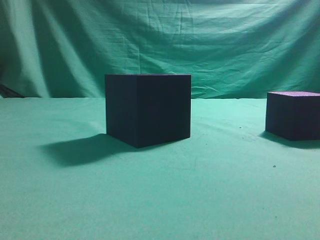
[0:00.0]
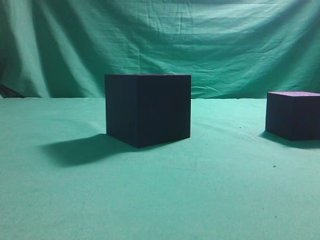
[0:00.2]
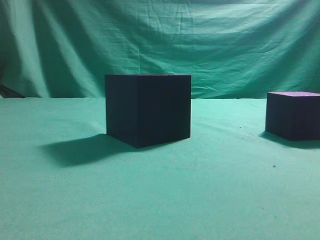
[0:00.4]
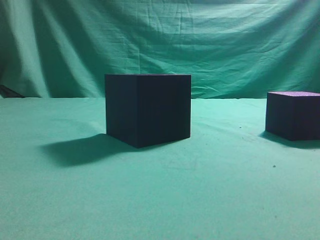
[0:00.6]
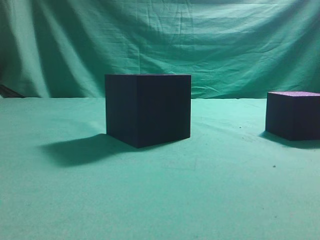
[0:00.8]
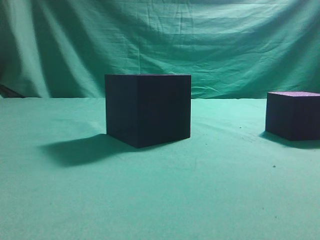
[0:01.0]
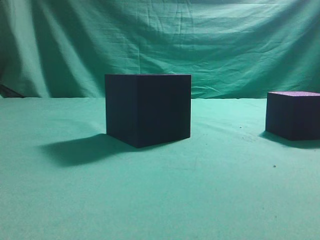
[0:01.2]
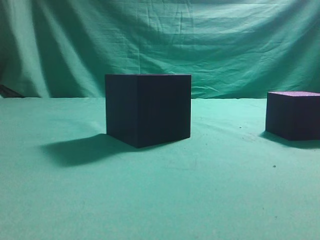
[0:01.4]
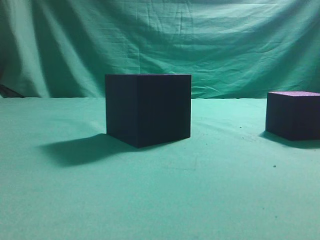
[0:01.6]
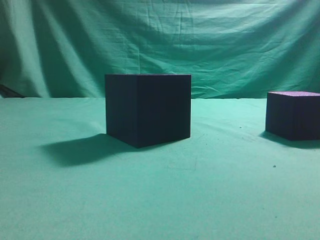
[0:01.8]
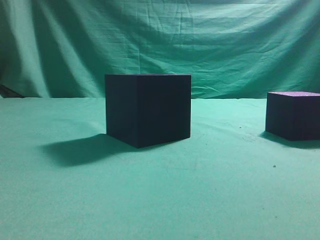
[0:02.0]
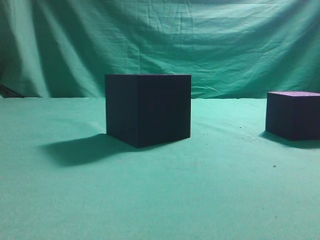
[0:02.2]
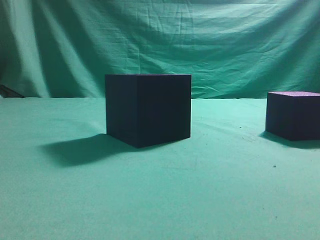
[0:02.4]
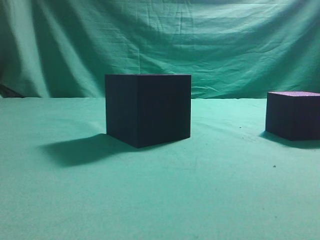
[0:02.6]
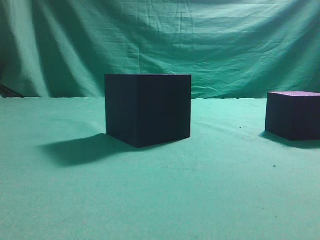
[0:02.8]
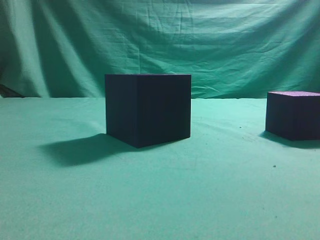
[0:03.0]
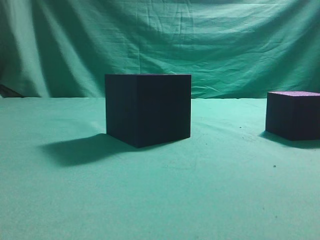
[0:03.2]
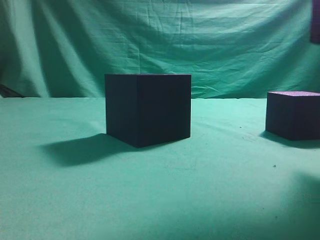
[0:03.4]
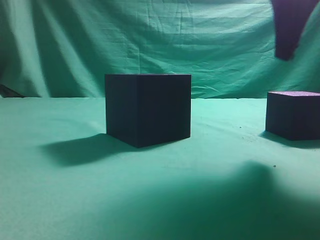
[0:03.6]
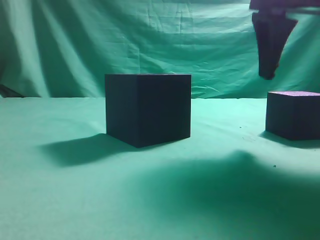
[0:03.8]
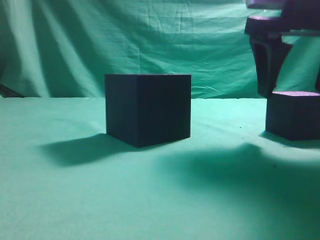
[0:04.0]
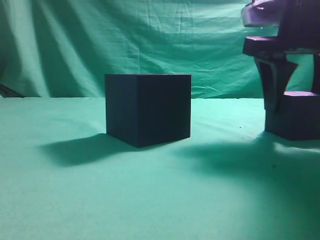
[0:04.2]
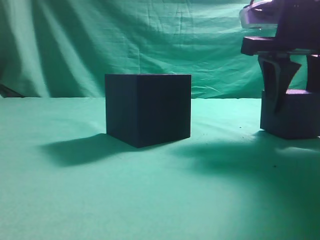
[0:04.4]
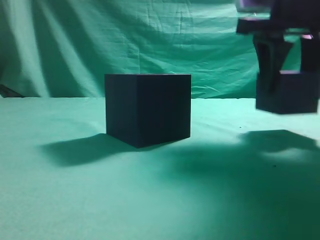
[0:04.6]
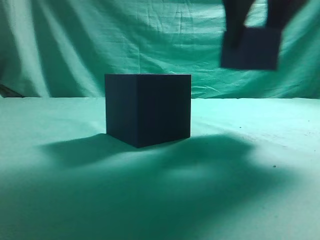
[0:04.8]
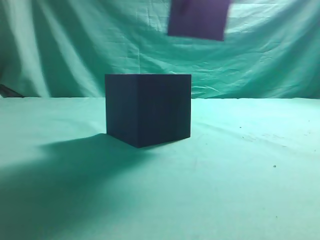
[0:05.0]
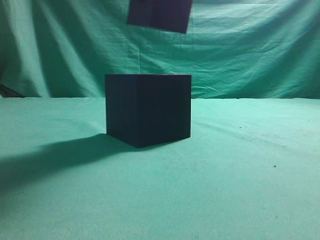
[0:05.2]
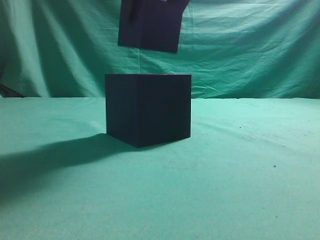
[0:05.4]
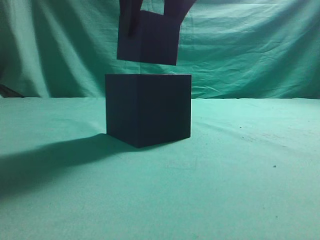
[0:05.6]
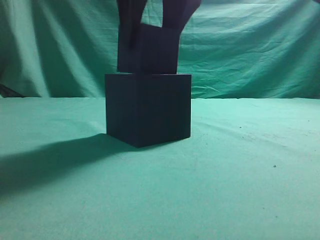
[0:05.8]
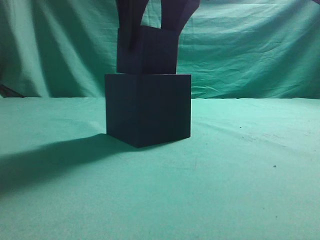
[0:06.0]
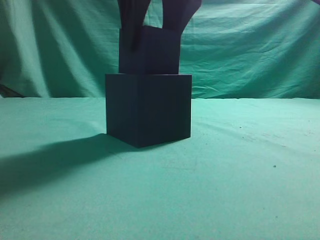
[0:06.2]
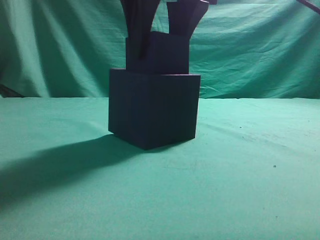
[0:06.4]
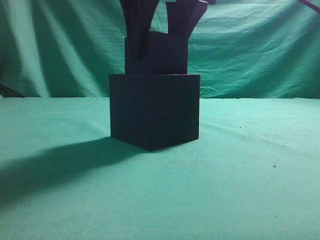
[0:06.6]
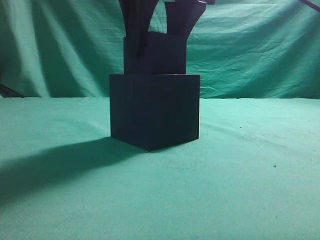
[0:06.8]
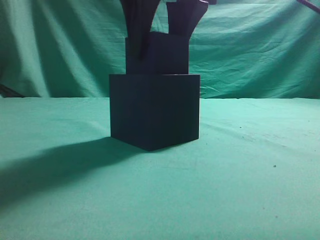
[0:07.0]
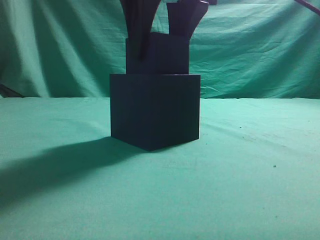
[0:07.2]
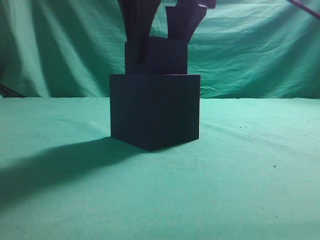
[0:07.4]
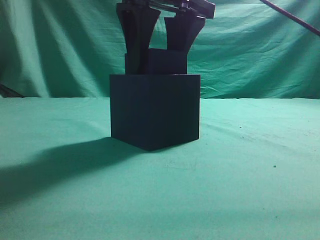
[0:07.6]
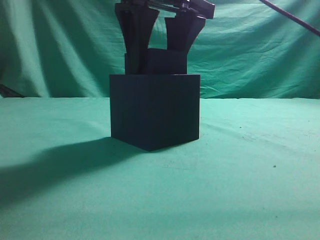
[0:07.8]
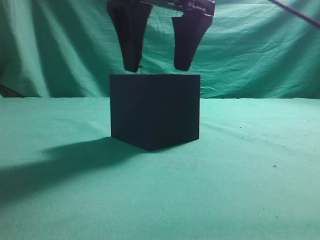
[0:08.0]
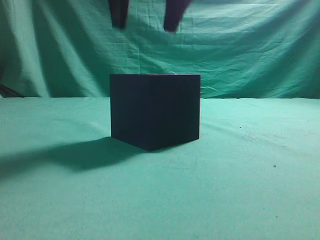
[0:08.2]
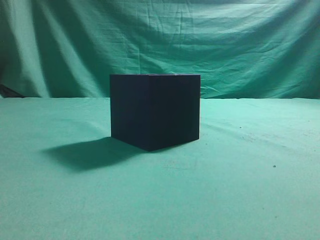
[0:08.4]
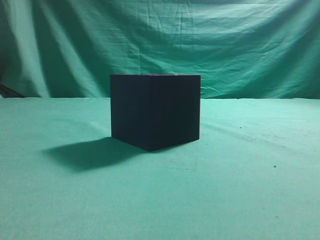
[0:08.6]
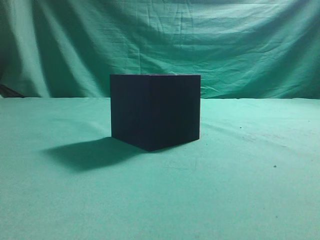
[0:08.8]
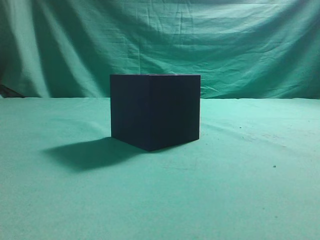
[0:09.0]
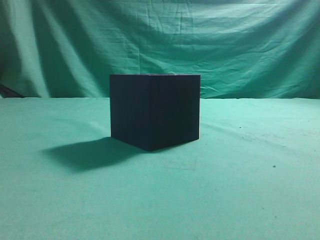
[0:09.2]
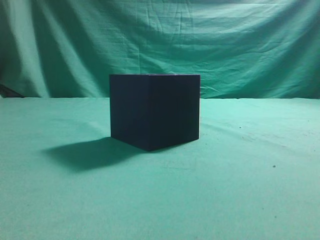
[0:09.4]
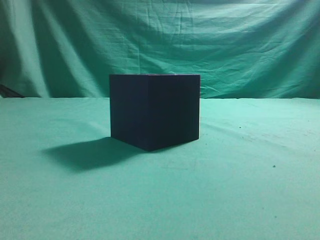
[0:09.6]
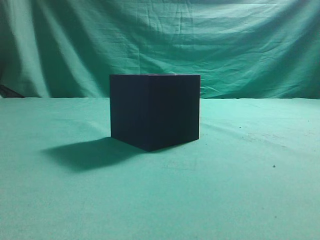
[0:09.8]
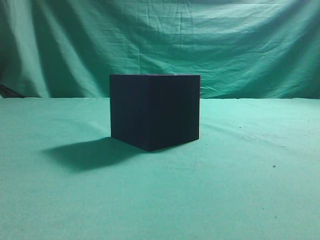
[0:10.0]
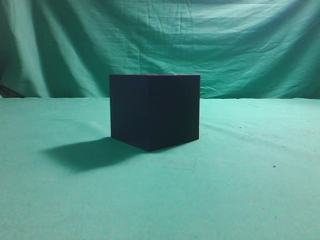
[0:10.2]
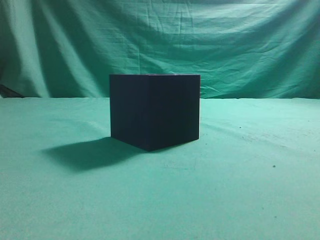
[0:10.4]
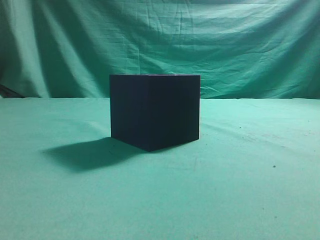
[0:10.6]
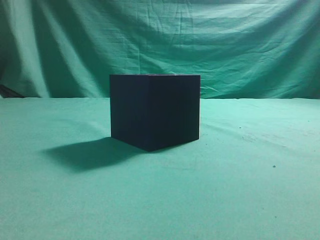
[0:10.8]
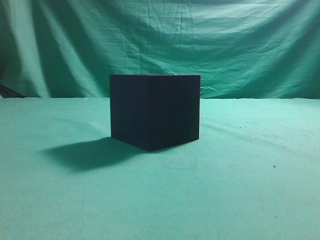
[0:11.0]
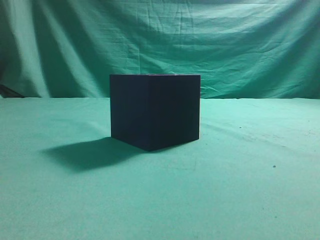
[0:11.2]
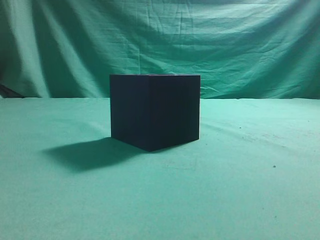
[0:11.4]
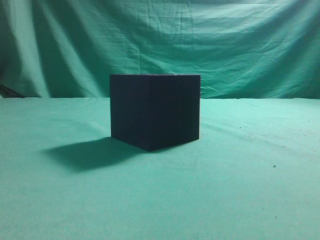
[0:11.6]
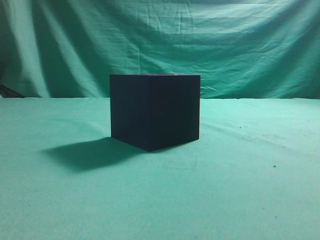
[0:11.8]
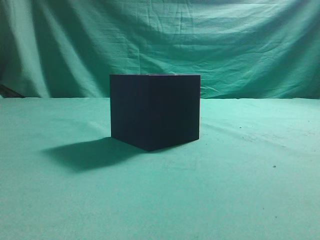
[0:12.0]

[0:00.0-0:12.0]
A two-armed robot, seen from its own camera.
Task of the whole recording: pick up the cube block and place it into the cube groove.
Step, 0:00.0 to 0:04.6: Grasp the cube.
Step, 0:04.8 to 0:08.0: Place cube into the cube-shaped recess.
0:03.0 to 0:04.4: The right gripper is displaced forward, downward and to the left by roughly 20 cm, and opens up.
0:04.4 to 0:06.0: The right gripper heads to the left and upward, covering about 20 cm.
0:06.0 to 0:07.6: The grippers stay close to where they were, moving slightly.
0:07.6 to 0:09.0: The right gripper is displaced upward, to the right and backward by about 25 cm, and closes up.
